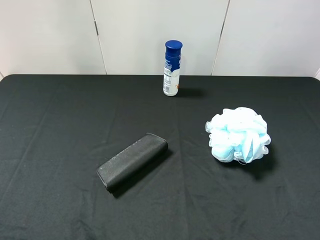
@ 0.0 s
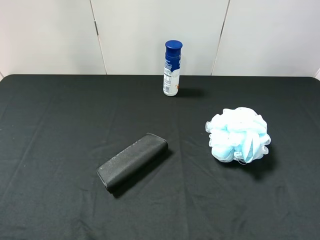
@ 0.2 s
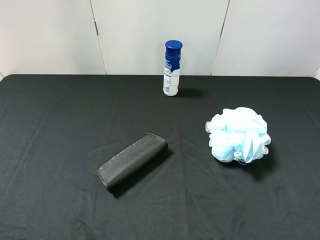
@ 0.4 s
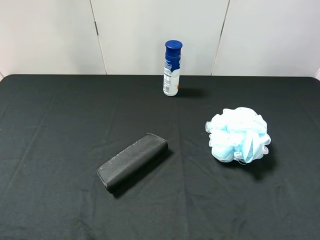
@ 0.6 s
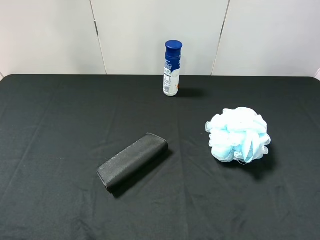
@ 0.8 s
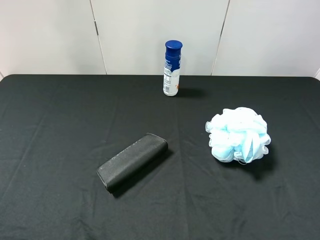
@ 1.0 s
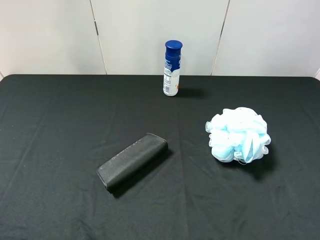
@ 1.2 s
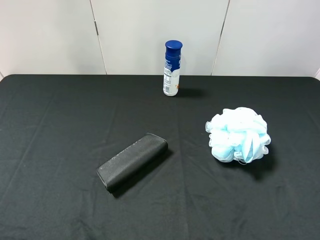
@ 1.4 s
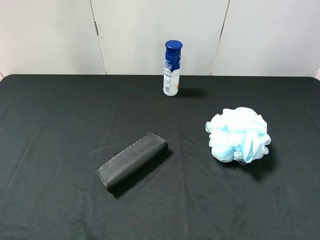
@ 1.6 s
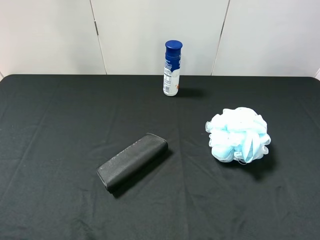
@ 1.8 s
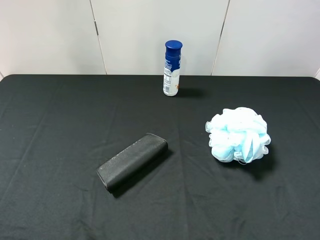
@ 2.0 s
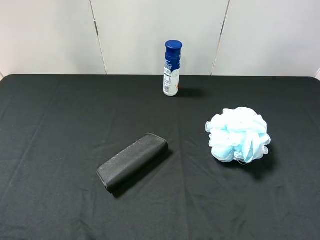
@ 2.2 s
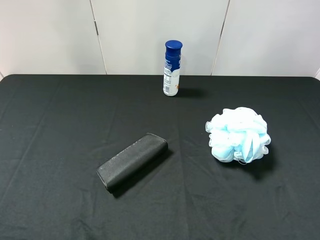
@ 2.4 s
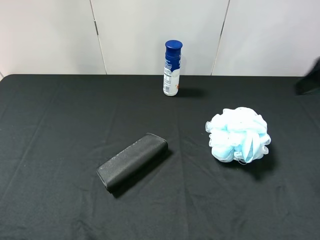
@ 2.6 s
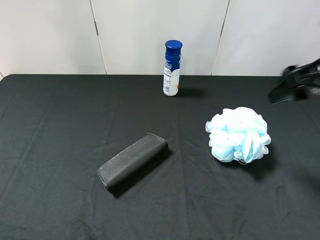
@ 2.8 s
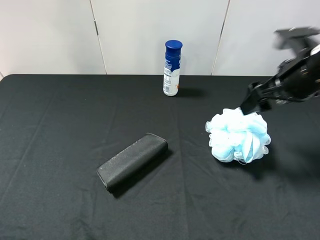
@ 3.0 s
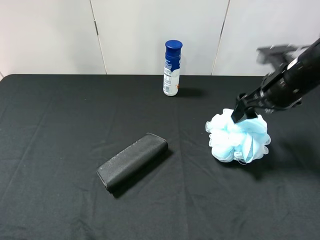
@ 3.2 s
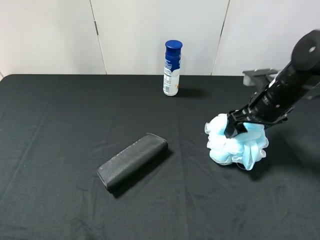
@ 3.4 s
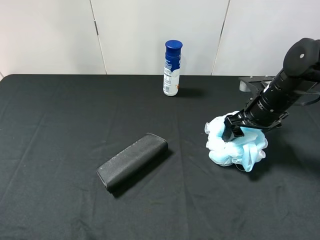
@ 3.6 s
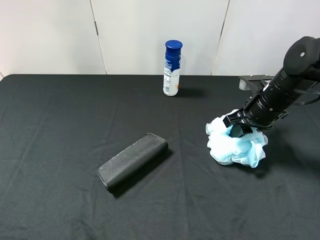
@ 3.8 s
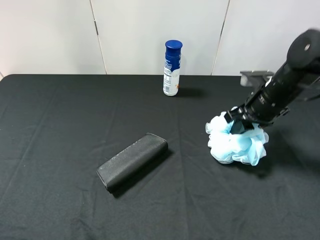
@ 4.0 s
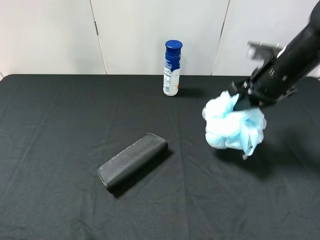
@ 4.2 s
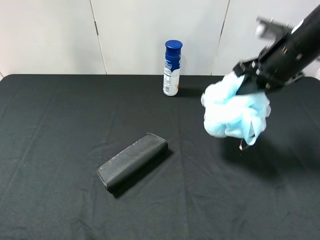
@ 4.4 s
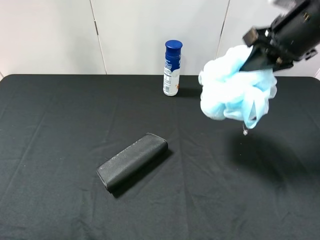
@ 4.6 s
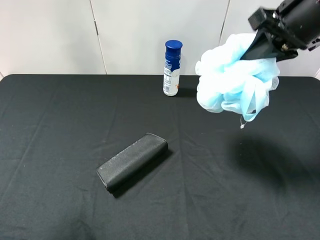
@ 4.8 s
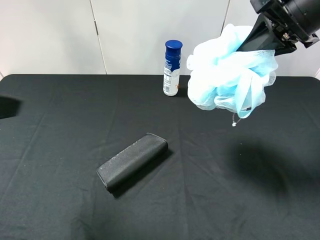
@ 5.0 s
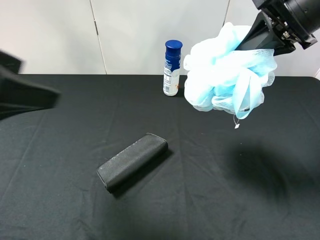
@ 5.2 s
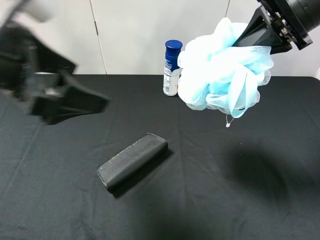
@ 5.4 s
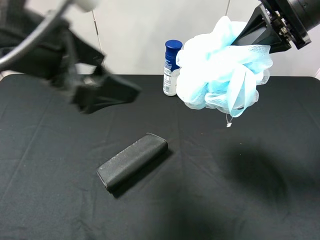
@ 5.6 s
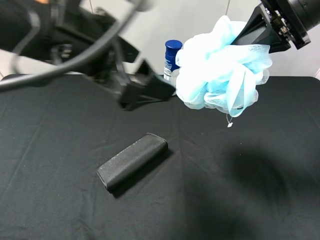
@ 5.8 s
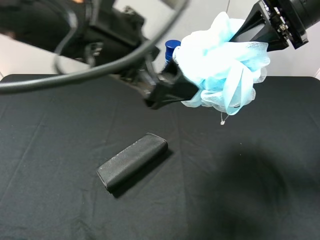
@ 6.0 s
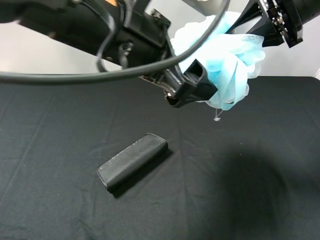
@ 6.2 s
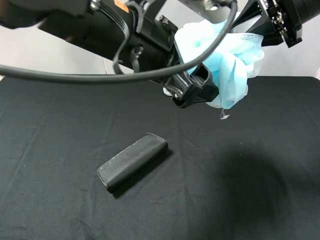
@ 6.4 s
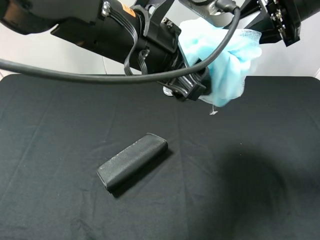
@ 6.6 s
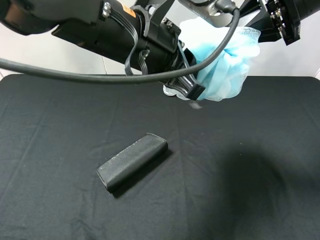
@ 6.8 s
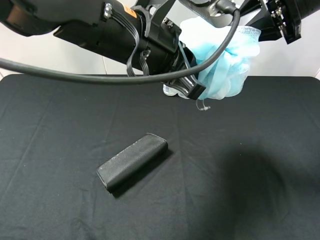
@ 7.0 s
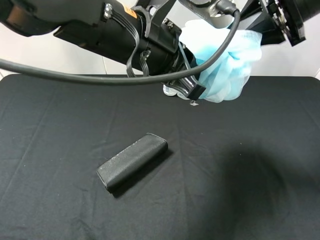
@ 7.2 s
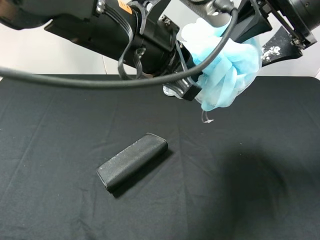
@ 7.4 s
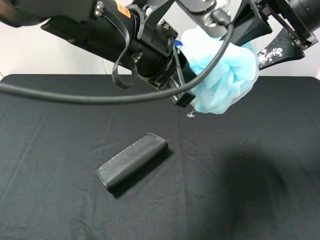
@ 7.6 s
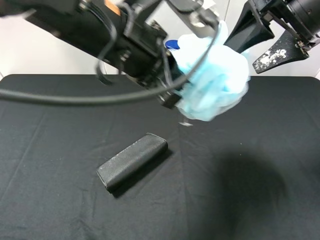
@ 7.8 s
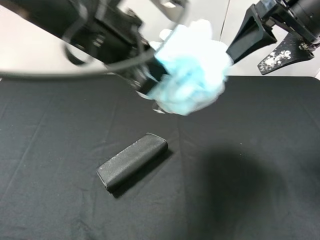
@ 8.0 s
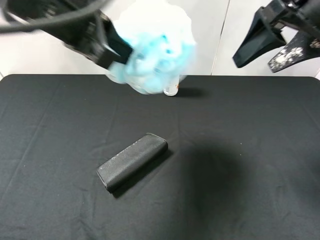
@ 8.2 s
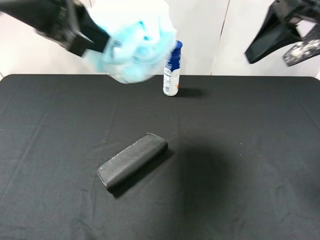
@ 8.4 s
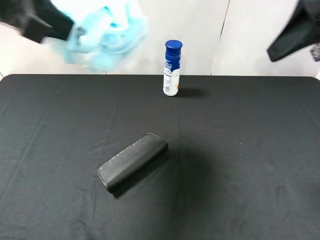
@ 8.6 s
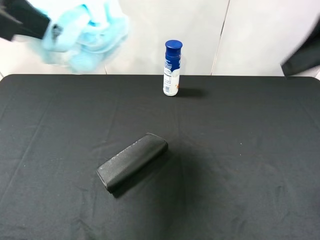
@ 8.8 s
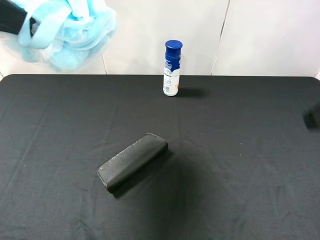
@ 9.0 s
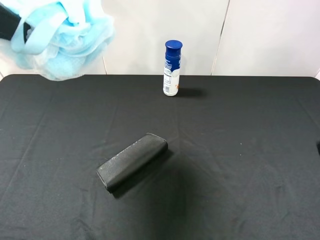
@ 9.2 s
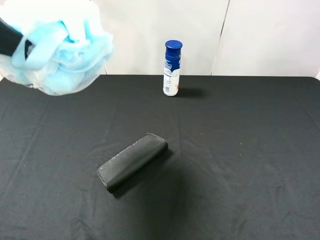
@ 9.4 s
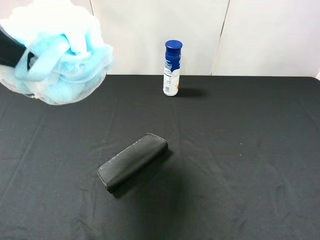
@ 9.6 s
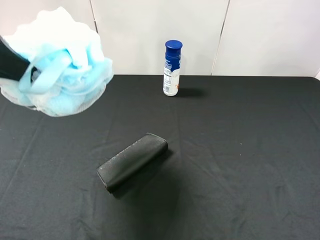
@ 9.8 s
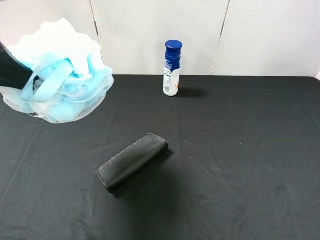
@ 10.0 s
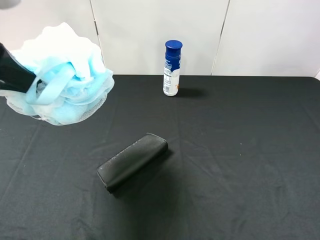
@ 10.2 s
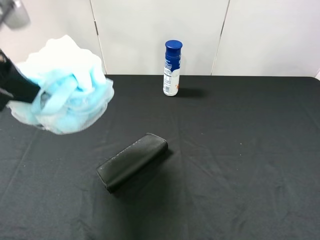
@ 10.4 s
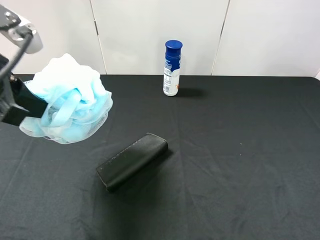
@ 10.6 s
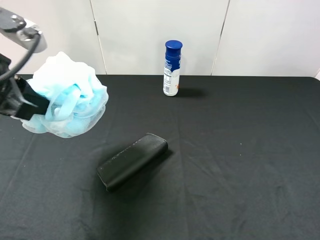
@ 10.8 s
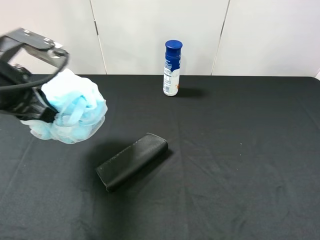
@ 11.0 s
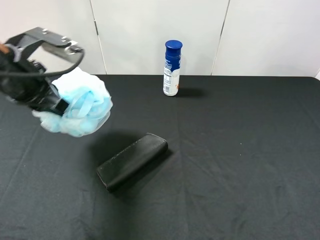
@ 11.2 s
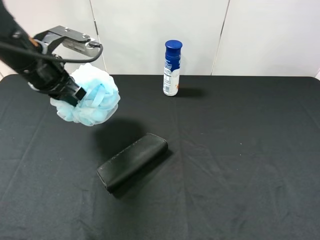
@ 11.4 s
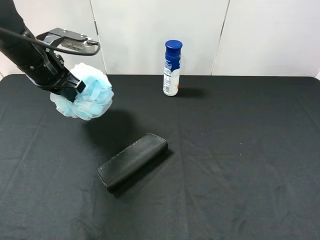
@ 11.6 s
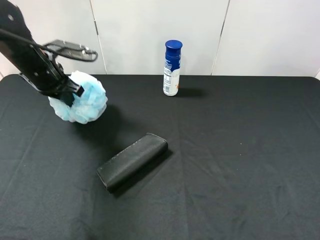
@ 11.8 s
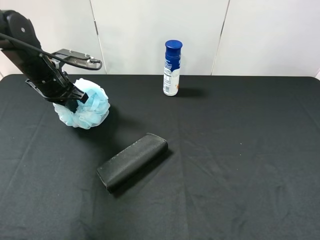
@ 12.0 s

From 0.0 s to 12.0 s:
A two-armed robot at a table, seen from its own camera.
Task of the whole recording: use the right gripper to pick up the item and transfer it from the right gripper to the left gripper.
Step, from 0.0 s to 4.0 s: Use the right gripper to grab the shower sphere on the right side of the table.
Step, from 4.2 s to 8.0 s: Pass the shower sphere to the left gripper.
From 0.0 s to 1.6 s: Both grippers stay about where they are.
From 1.6 s to 3.0 s: The right gripper shifts some 25 cm forward.
From 3.0 s to 4.4 s: The left gripper moves about 5 cm. The right gripper goes downward and returns, roughly 10 cm each way, and closes its fingers.
From 4.4 s to 6.0 s: The right gripper shifts approximately 10 cm upward; the left gripper shifts about 30 cm to the right and forward.
From 6.0 s to 7.6 s: The right gripper opens; the left gripper closes its fingers.
From 7.6 s to 9.0 s: The right gripper shifts some 15 cm backward and to the right, while the left gripper goes about 20 cm to the left and upward.
From 9.0 s to 10.4 s: The left gripper moves downward, about 10 cm, while the right gripper travels backward and downward by some 10 cm.
From 10.4 s to 12.0 s: The left gripper heads forward and downward, covering some 25 cm.

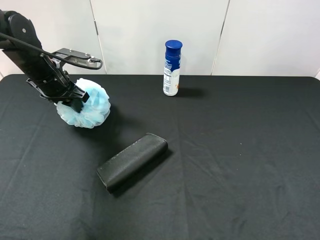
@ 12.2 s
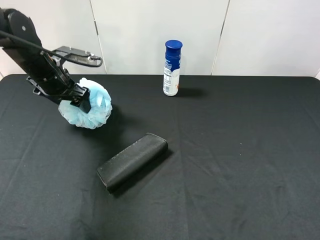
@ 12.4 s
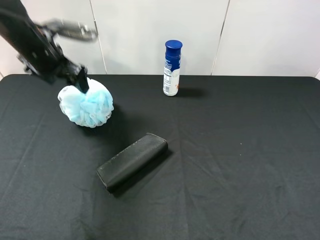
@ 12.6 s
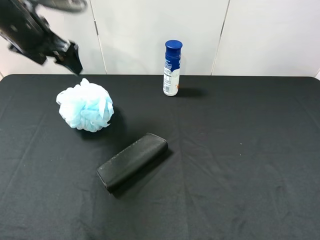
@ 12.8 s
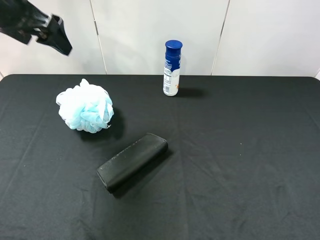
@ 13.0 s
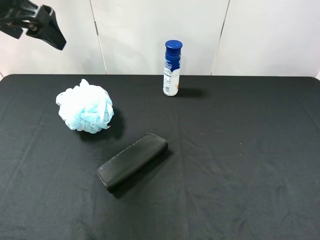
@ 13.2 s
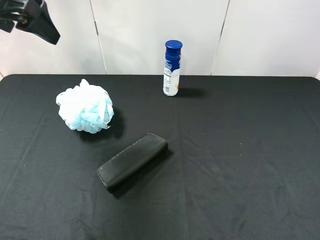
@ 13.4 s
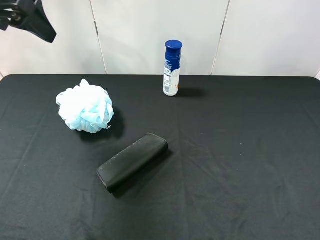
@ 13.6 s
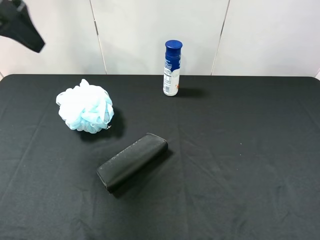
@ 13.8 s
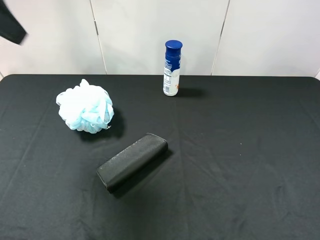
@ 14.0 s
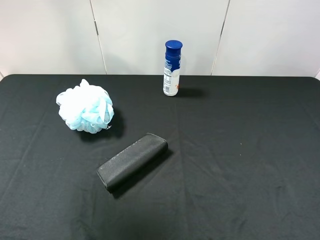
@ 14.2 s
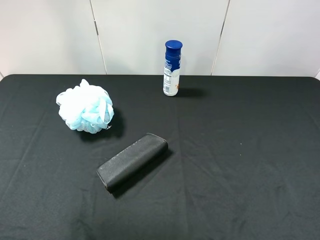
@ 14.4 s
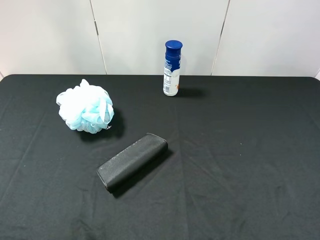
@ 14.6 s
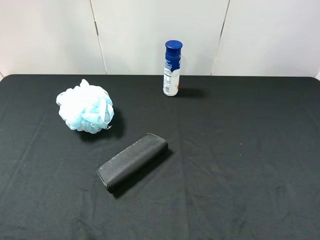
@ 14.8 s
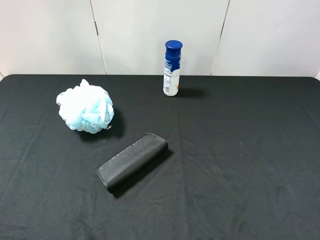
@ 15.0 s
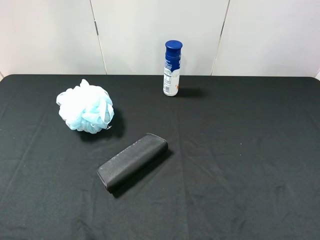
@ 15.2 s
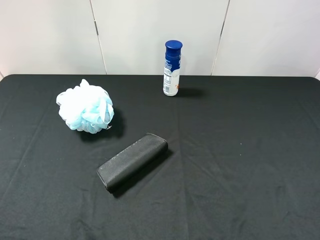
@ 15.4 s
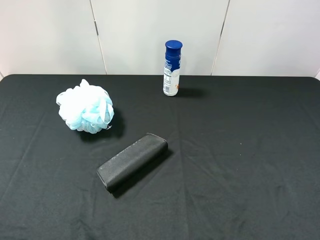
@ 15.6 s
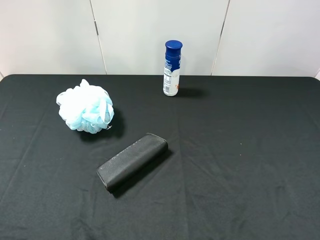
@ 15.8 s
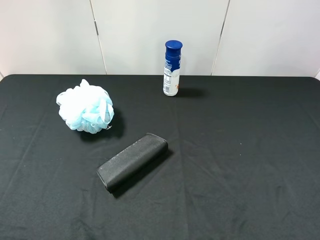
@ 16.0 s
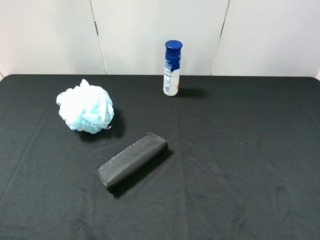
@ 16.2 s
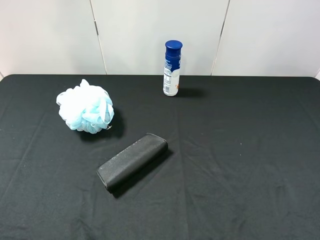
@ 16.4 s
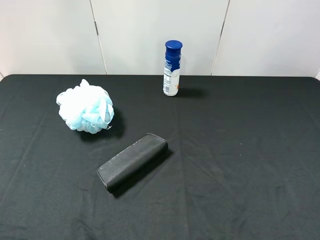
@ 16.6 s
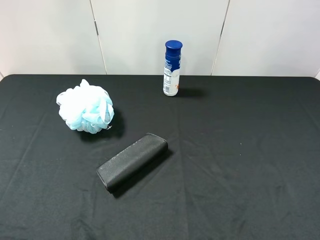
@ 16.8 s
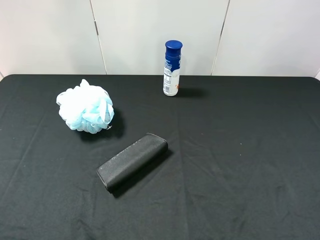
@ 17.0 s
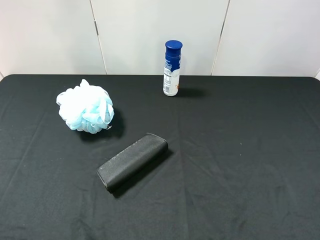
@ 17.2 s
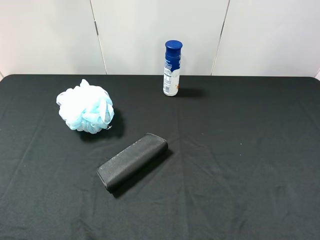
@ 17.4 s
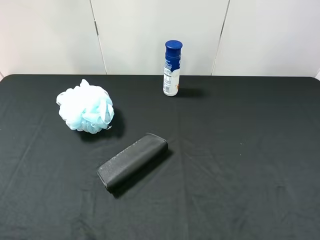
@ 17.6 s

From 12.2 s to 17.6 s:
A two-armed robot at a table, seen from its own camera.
Task of the whole recording: use the right gripper to pick up the item and transfer it from the right gripper to the left gripper.
From 12.2 s to 13.6 s: The left gripper travels upward by some 20 cm, and opens up.
From 13.6 s to 15.0 s: The left gripper moves backward, approximately 30 cm.
From 16.2 s to 17.6 s: The two grippers keep their place.
